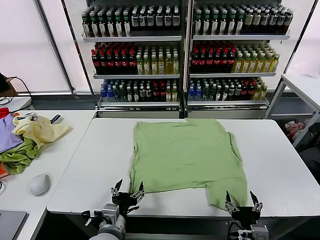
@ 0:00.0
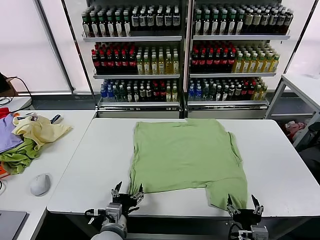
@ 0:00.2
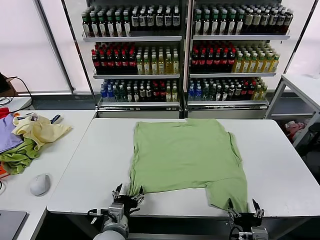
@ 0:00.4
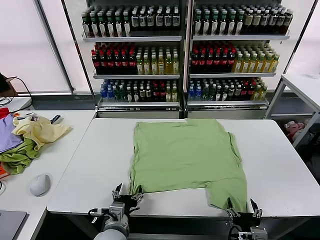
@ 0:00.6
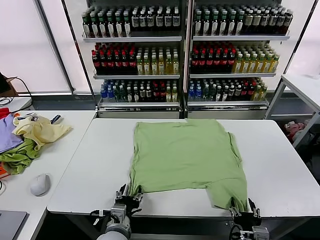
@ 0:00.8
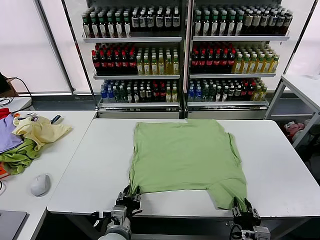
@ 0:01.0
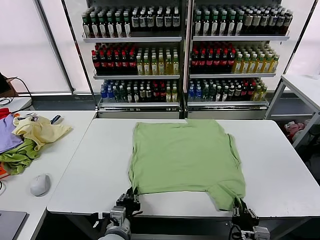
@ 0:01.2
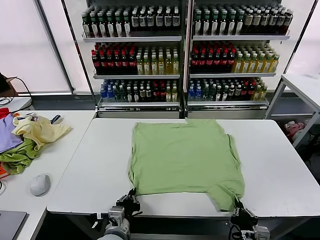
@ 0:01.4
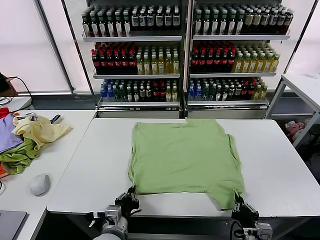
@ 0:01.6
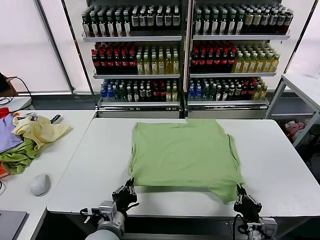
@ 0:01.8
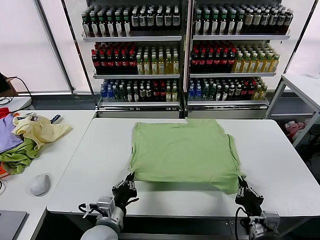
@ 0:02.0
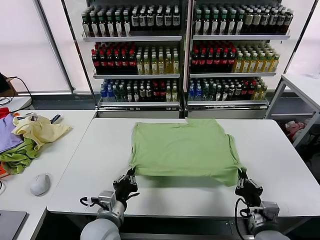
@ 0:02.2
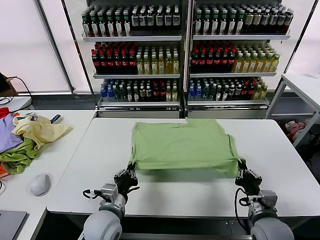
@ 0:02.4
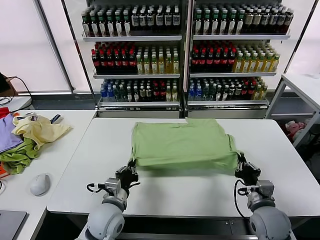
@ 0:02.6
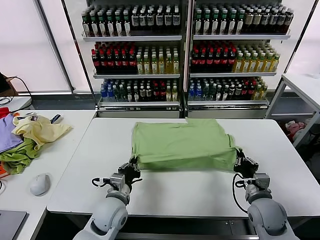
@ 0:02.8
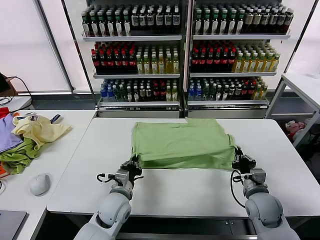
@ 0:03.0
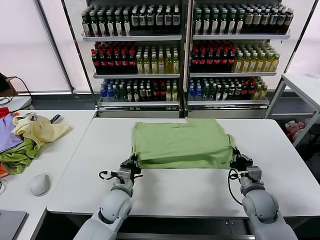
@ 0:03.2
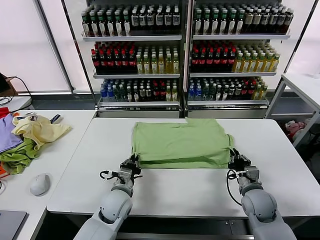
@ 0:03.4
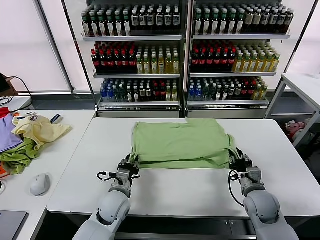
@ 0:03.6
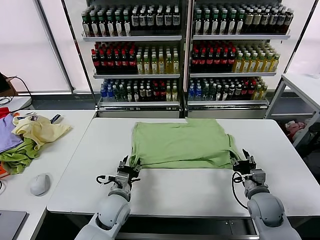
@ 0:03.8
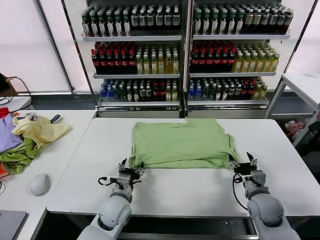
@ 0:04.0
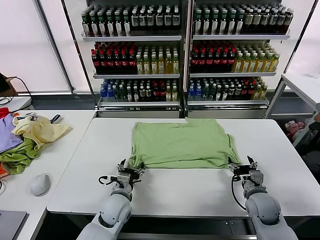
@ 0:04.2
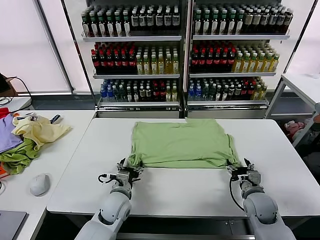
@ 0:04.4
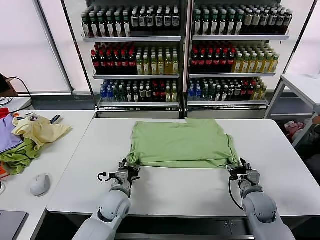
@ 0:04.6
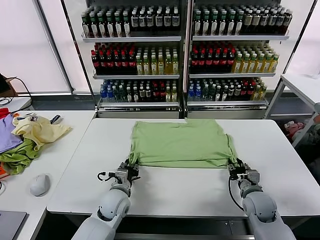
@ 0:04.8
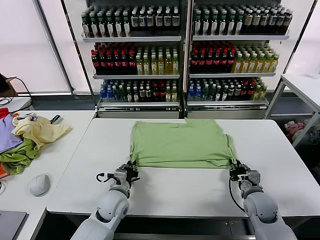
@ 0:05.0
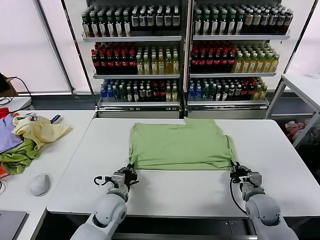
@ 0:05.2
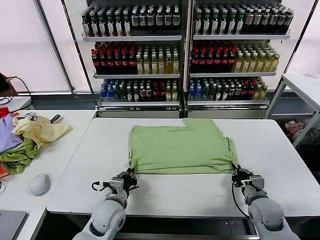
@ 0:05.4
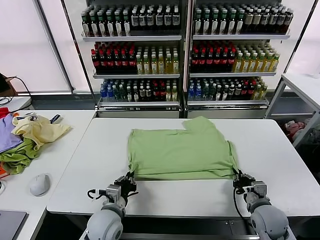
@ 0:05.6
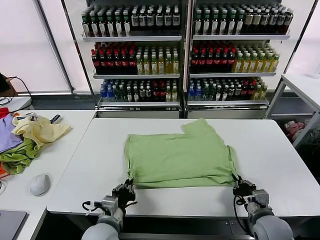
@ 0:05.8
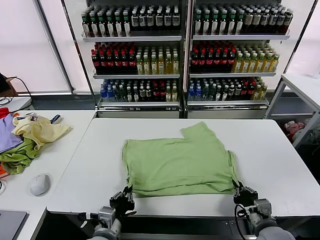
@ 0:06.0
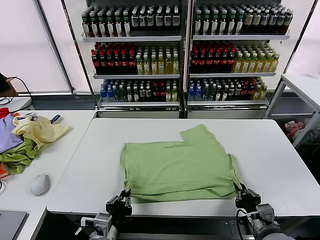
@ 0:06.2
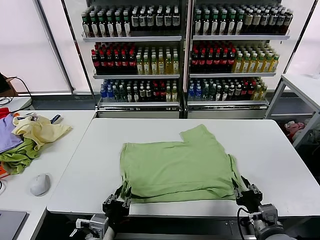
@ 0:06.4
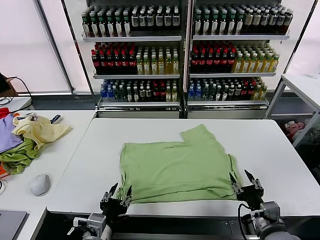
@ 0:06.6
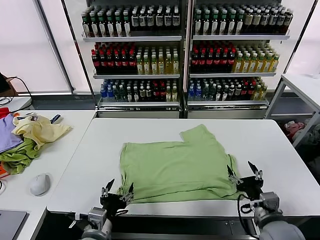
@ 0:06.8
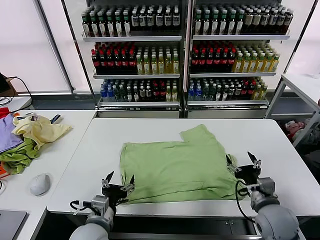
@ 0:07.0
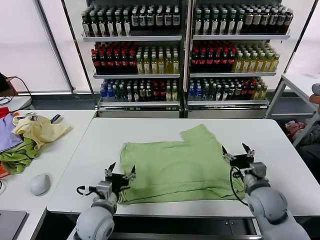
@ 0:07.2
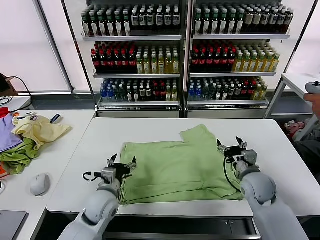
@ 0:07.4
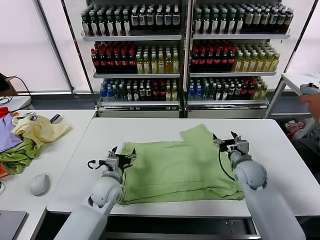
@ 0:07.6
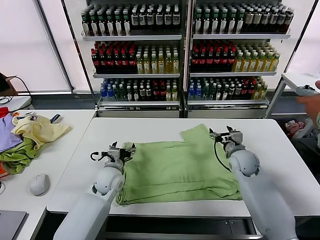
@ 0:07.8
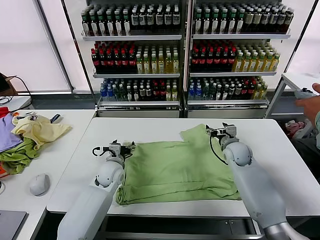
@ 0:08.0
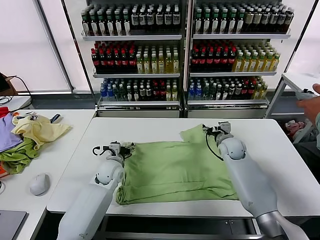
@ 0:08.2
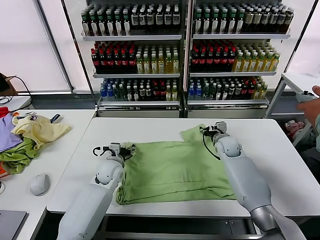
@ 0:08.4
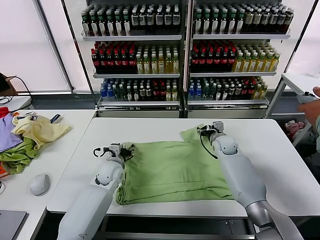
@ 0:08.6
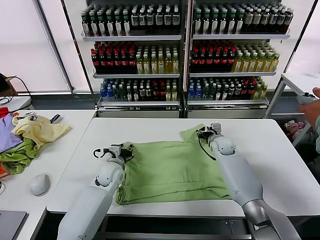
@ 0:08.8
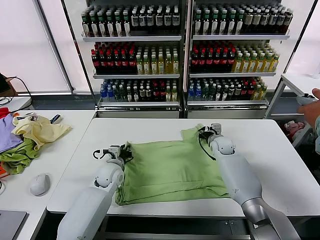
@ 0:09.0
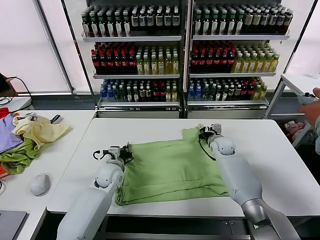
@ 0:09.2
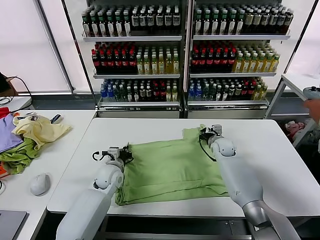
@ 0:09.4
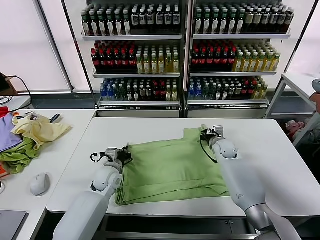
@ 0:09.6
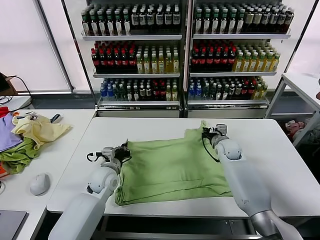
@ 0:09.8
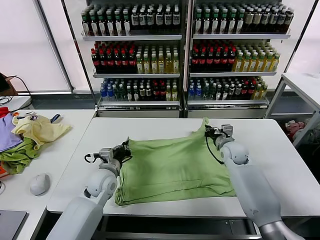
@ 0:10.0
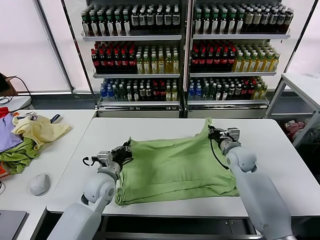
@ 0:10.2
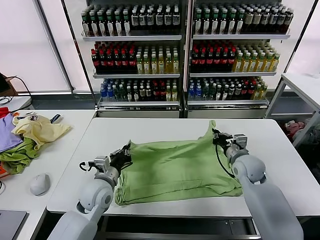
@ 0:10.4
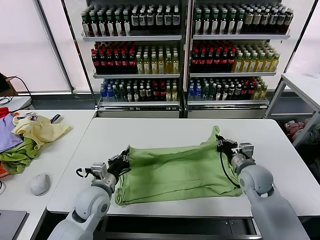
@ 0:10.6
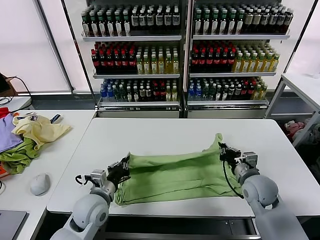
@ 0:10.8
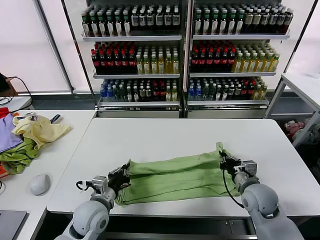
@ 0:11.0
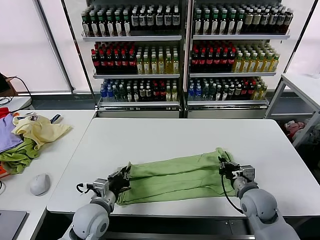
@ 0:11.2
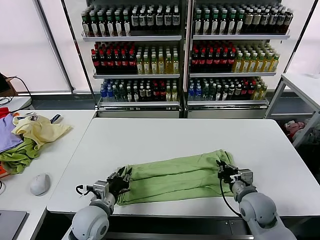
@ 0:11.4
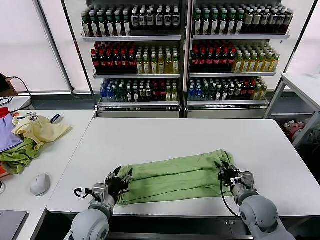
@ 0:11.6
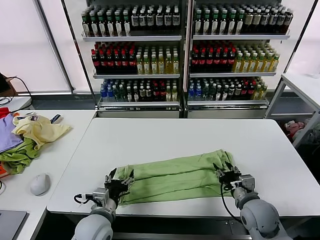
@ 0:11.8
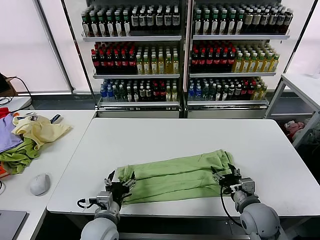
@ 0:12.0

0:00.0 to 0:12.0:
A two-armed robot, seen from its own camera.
Task of the whole recording: fold and organize the clothes.
Step, 0:00.0 to 0:01.2: use both grippers simultaneously to clamp the lower edge of the clothing fabric.
Step, 0:01.6 to 0:03.8: use both grippers to drag the lower edge of the fabric forward and fold it over the upper edge.
Step, 0:04.0 to 0:06.4: Drag the clothes downward with both gripper.
Step, 0:06.6 to 0:09.2: use both grippers simultaneously to clamp the upper edge of the clothing fabric.
Step, 0:09.4 to 0:11.6: use both grippers to drag the upper edge of the fabric backward and fold it over the lower edge.
0:01.6 to 0:03.0: Both grippers travel together forward, approximately 15 cm.
0:03.0 to 0:04.4: The left gripper opens up, while the right gripper opens.
0:04.4 to 0:06.0: The two grippers go roughly 15 cm backward. The left gripper closes. Meanwhile the right gripper closes up.
0:06.0 to 0:07.6: Both grippers move forward, approximately 20 cm. The left gripper opens its fingers. The right gripper opens.
0:07.6 to 0:09.0: The left gripper goes some 5 cm forward, and closes up. The right gripper goes some 10 cm forward, and closes.
0:09.0 to 0:10.4: The right gripper travels backward by some 15 cm. The left gripper goes about 10 cm backward and upward.
0:10.4 to 0:12.0: The grippers both shift backward by approximately 10 cm. The left gripper opens. The right gripper opens its fingers.

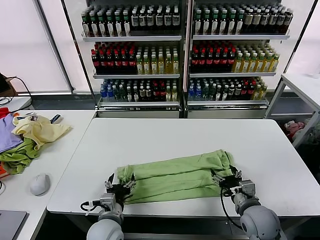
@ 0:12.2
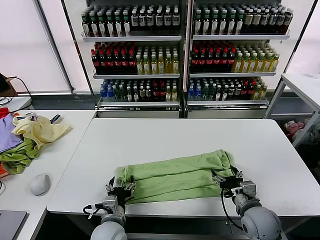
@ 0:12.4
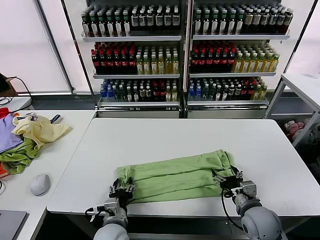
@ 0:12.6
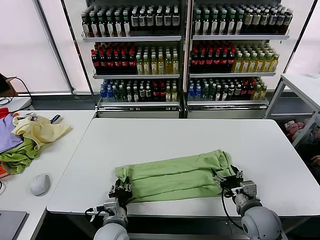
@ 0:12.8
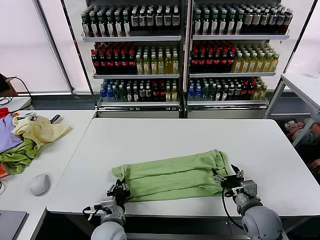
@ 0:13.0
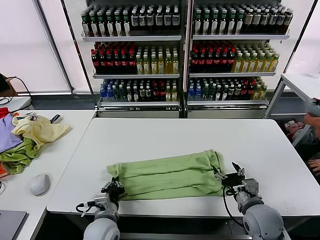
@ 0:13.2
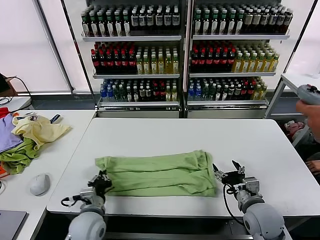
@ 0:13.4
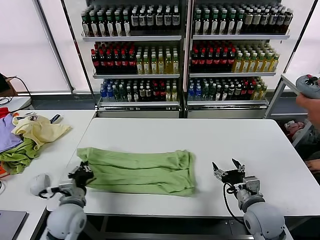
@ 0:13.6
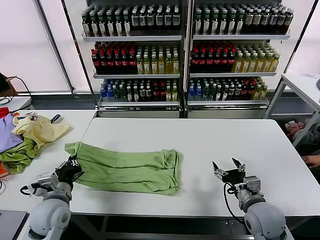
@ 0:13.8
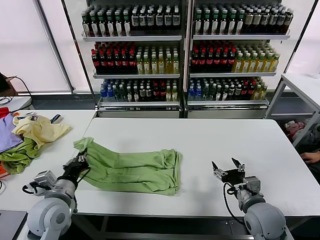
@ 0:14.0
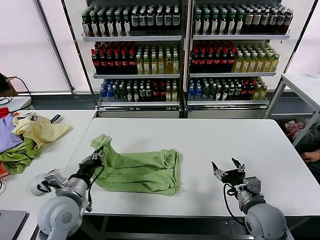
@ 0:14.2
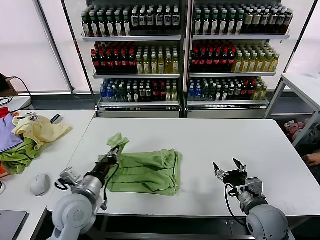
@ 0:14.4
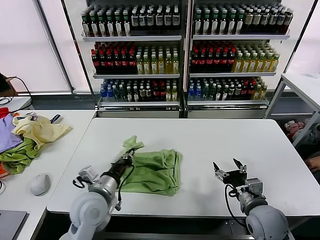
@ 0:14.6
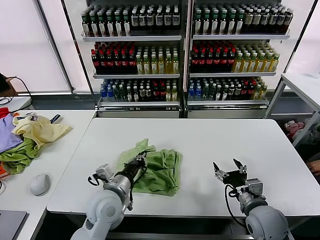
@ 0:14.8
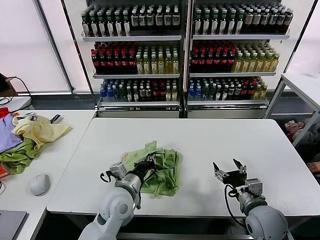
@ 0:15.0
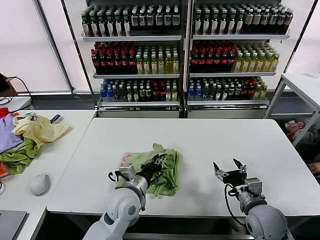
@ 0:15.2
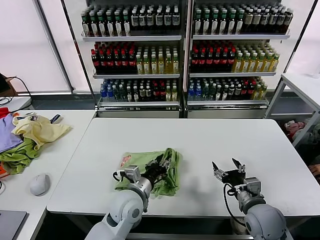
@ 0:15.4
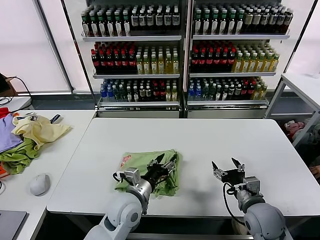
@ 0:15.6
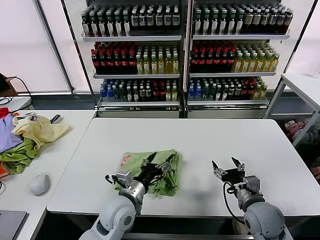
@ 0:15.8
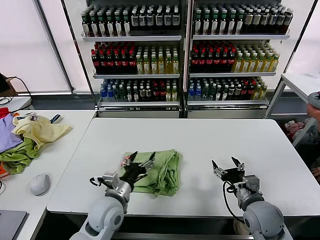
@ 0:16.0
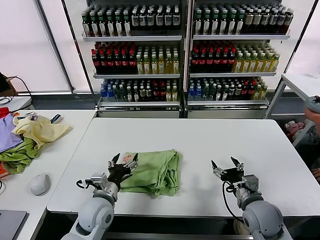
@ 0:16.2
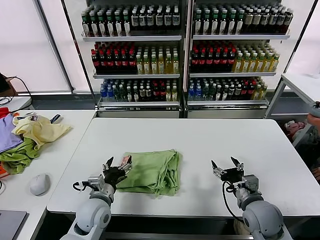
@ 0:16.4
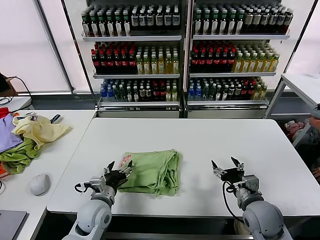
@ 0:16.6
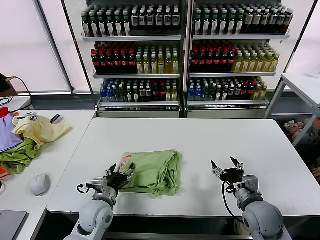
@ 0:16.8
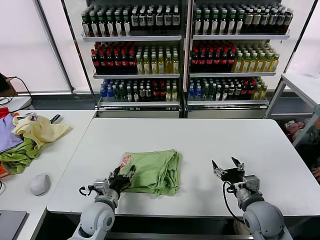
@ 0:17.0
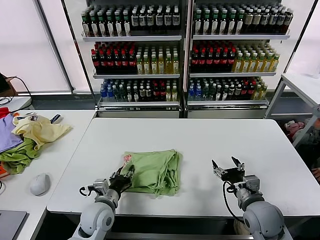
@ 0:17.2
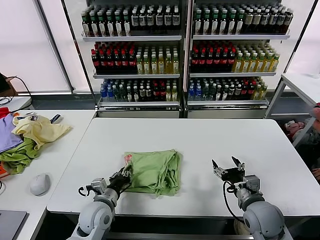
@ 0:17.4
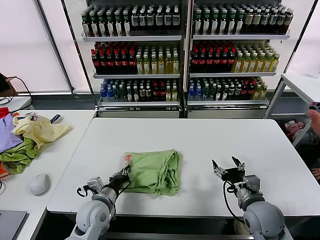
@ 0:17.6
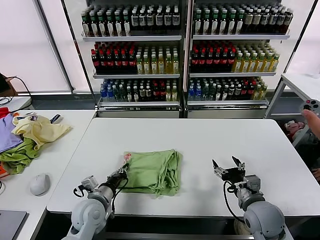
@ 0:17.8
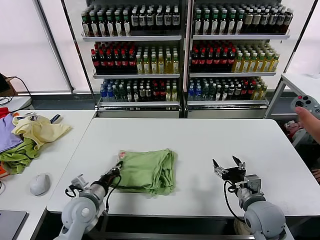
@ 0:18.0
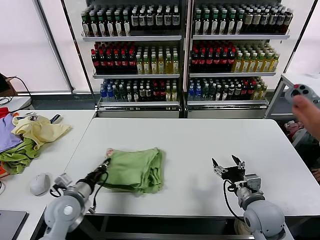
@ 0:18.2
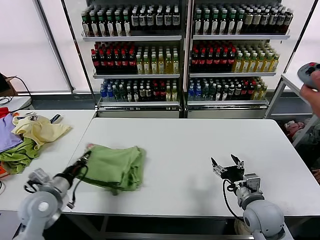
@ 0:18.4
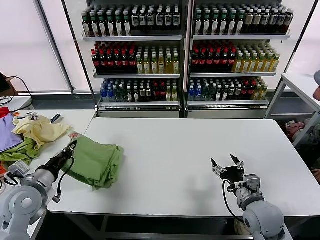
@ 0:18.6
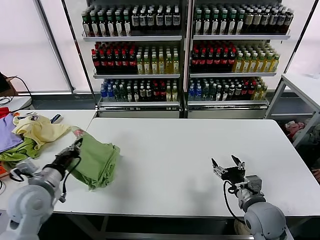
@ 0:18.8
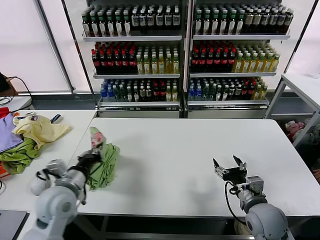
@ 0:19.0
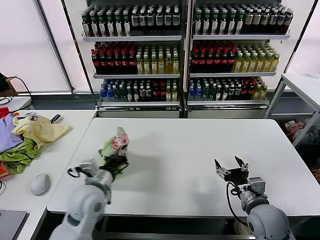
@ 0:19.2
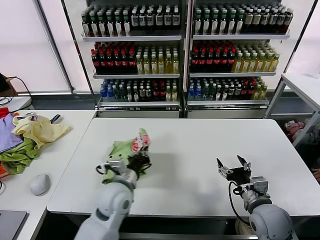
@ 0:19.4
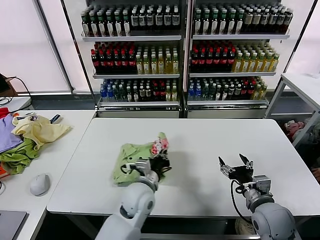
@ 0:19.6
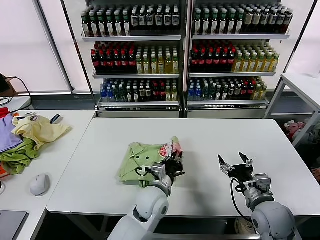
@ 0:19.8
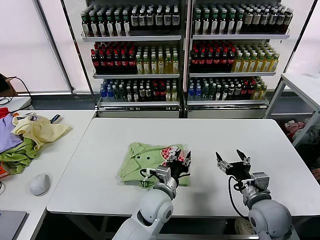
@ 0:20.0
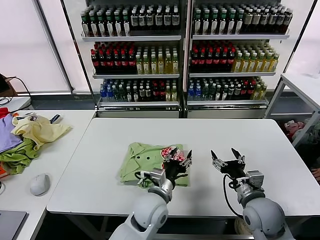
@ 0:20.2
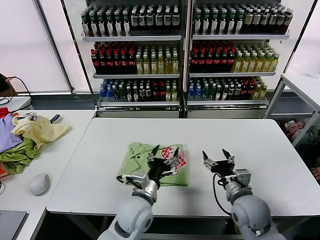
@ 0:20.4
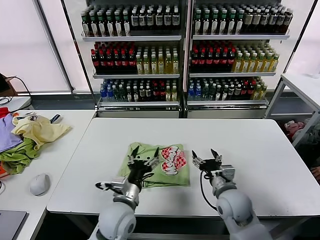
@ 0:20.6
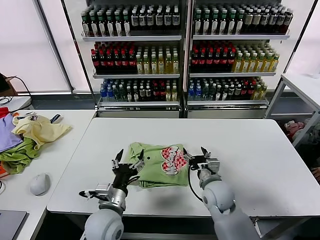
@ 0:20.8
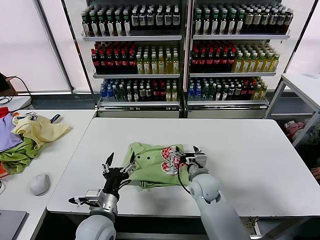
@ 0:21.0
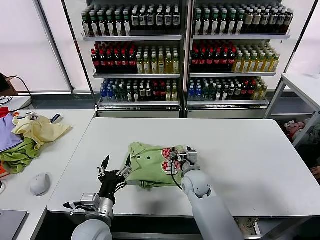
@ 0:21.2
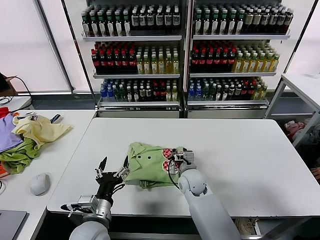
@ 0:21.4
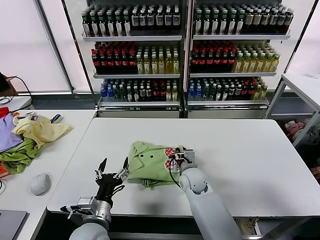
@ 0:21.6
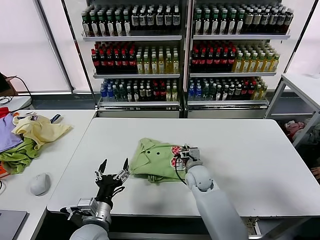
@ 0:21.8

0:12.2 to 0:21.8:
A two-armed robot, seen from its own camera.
Task of the whole recording: fold and organize the clothes.
Step, 0:12.2 to 0:13.0: use the left gripper to clamp the left edge of the fabric.
Step, 0:13.2 to 0:15.6: use the left gripper to drag the left edge of the fabric to the left and folds it over the right edge.
Step, 0:15.8 to 0:20.0: Flip the folded clothes over with left gripper.
0:12.2 to 0:13.8: The left gripper goes roughly 15 cm to the left, and closes.
0:13.8 to 0:15.4: The left gripper moves to the right, approximately 20 cm, and opens its fingers.
0:15.4 to 0:17.0: The left gripper shifts about 10 cm to the left and downward.
0:17.0 to 0:18.6: The left gripper is displaced to the left and upward by about 20 cm, and closes its fingers.
0:18.6 to 0:20.2: The left gripper heads to the right, covering about 35 cm, and opens up.
0:20.2 to 0:21.8: The left gripper heads to the left and backward, covering approximately 20 cm. Meanwhile the right gripper goes about 25 cm forward, to the left and downward, and closes up.
